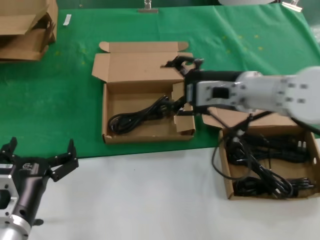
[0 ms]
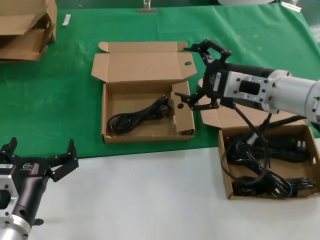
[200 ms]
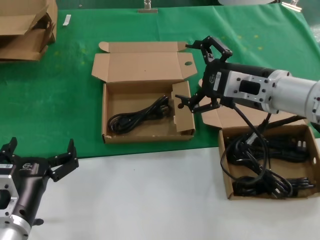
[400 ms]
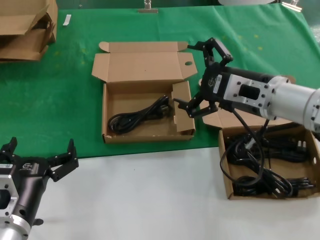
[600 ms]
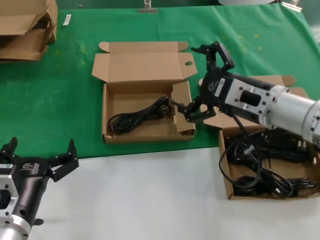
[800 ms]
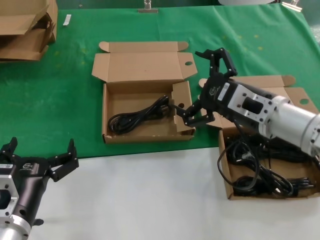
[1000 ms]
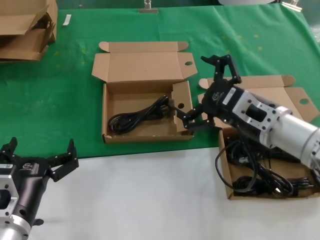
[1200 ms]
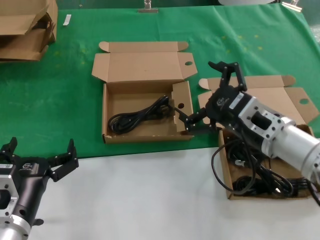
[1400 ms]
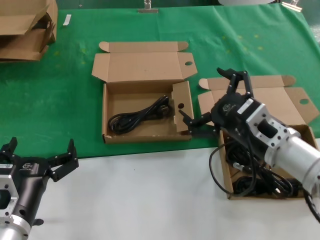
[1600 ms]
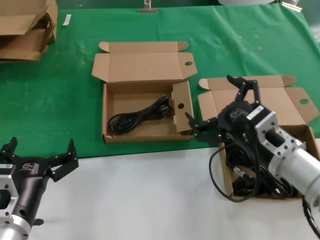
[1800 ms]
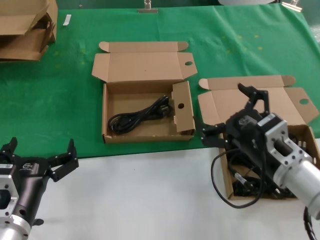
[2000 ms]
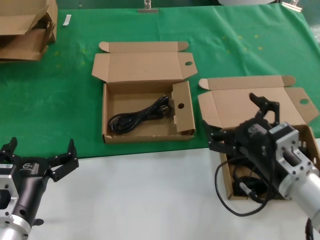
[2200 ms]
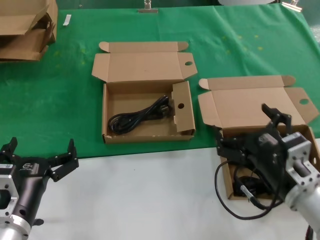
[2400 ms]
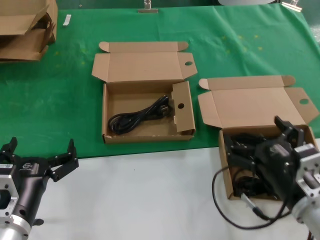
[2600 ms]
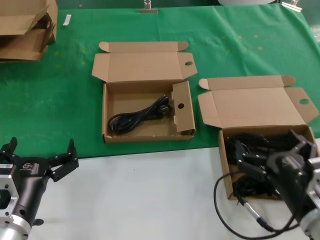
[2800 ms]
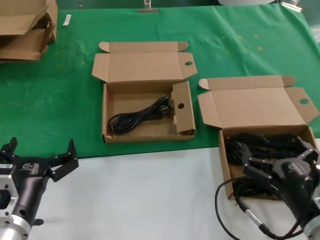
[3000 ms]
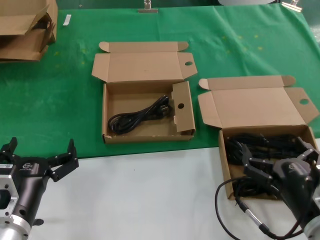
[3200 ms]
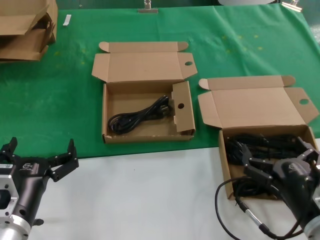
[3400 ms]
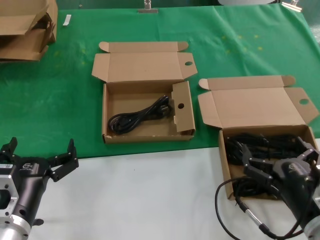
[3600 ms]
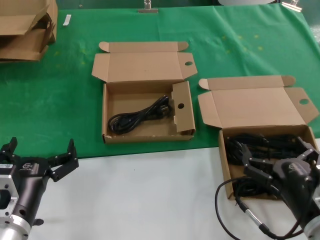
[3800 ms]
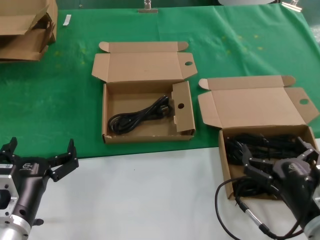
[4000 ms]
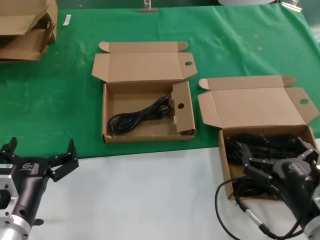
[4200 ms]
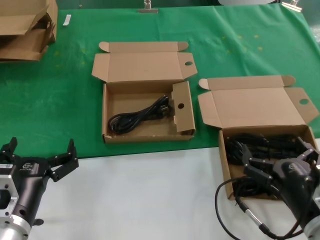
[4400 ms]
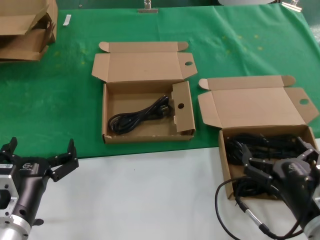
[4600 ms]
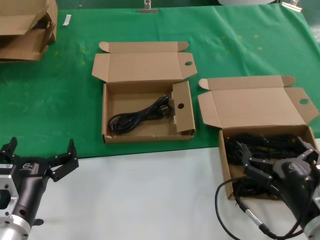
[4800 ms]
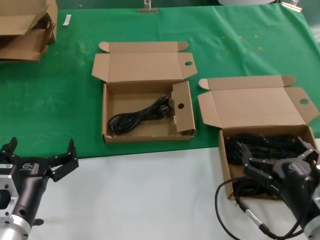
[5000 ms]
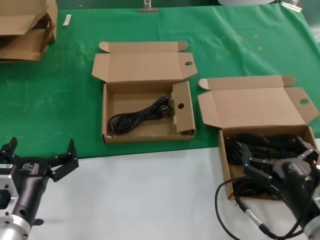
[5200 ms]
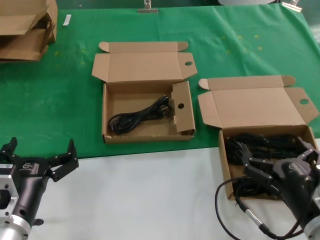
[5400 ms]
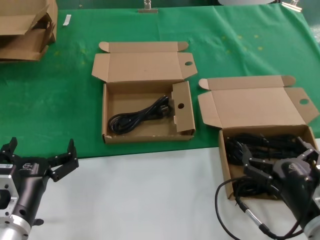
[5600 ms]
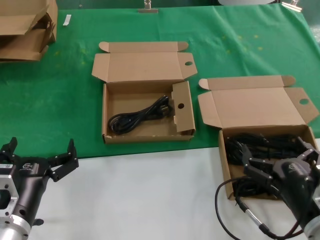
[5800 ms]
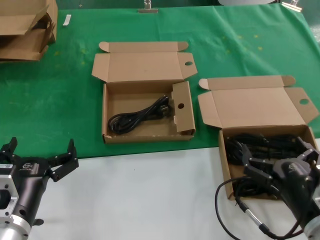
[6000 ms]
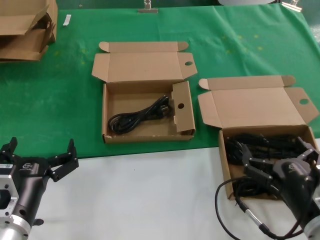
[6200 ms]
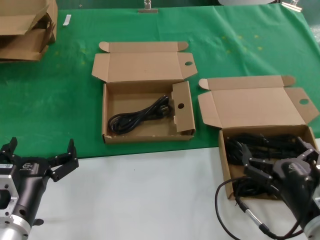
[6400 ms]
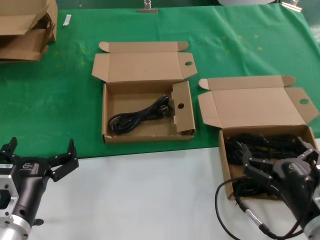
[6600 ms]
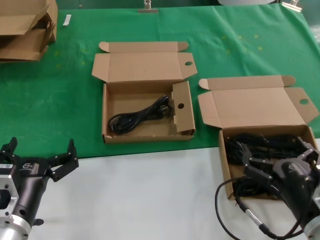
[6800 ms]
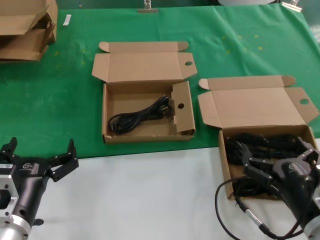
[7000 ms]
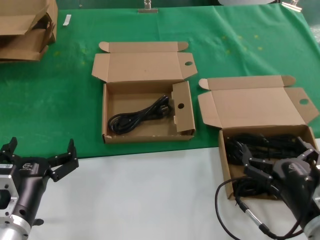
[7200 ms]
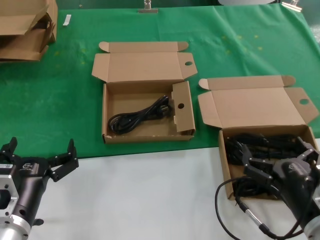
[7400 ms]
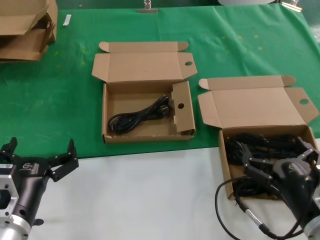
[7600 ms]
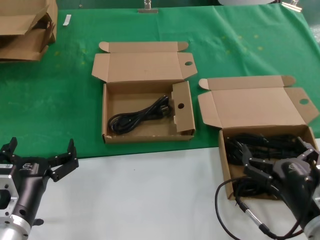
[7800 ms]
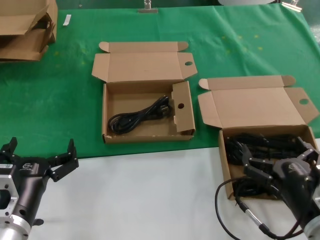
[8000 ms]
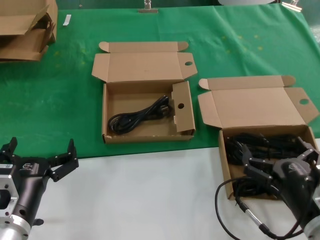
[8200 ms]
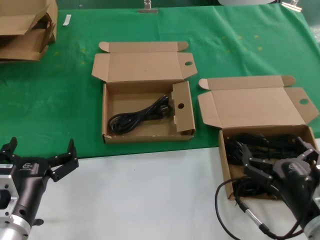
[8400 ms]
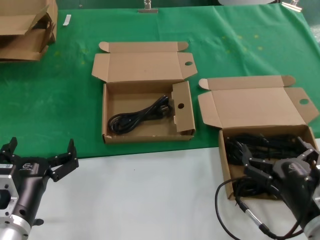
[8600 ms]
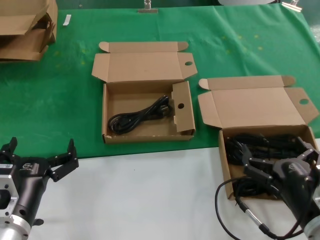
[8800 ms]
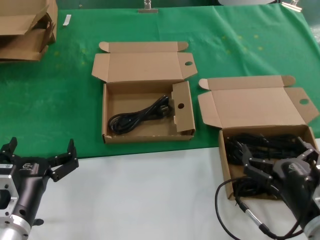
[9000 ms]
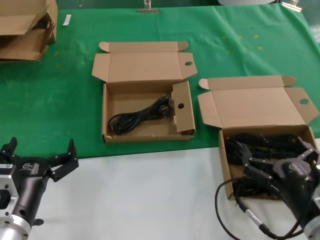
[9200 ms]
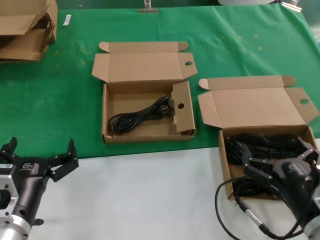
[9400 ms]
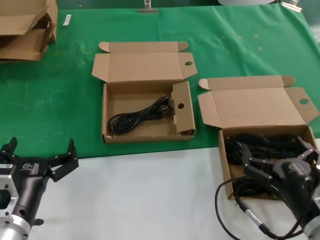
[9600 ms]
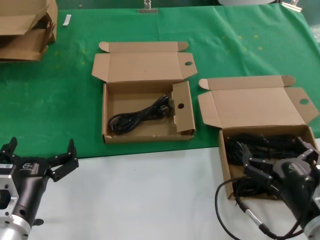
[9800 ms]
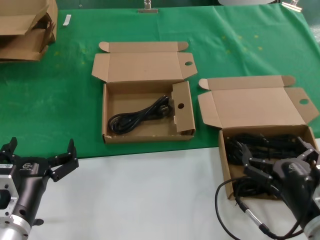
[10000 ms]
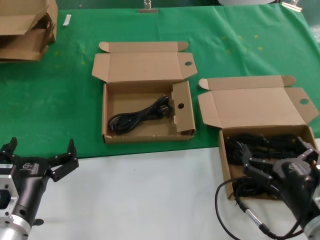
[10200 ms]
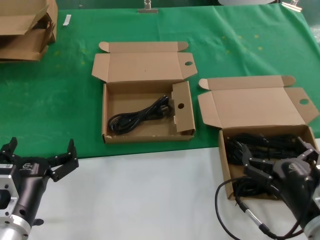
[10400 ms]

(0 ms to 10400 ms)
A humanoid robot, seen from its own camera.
Task of the whole recording: take the parts from the box containing them and put them into an empty box.
0 ms - 1400 ms: The right hand moves downward and backward, roughly 10 cm.
1400 ms - 3000 ms: The right hand goes approximately 15 cm downward and backward.
3000 ms - 10400 ms: Neither hand changes place.

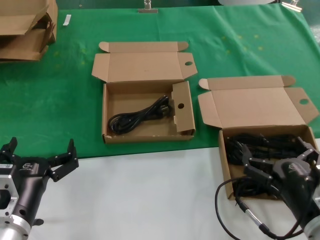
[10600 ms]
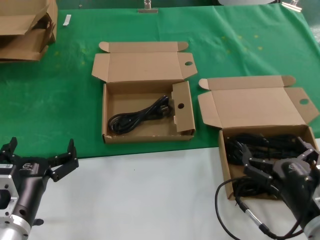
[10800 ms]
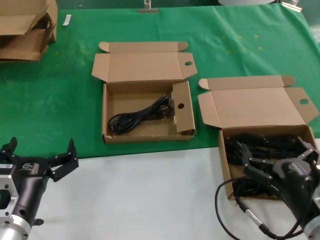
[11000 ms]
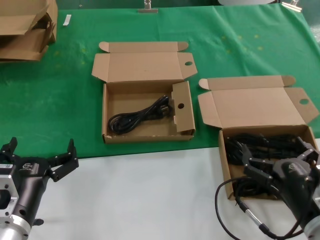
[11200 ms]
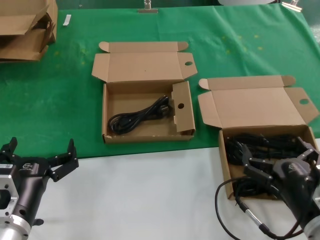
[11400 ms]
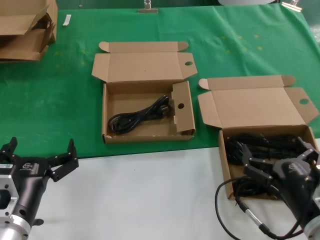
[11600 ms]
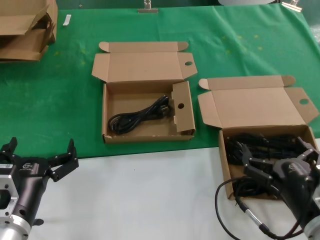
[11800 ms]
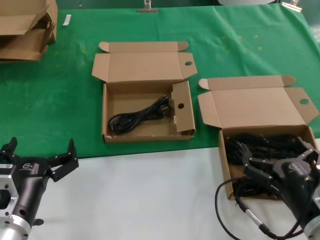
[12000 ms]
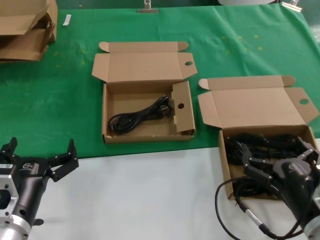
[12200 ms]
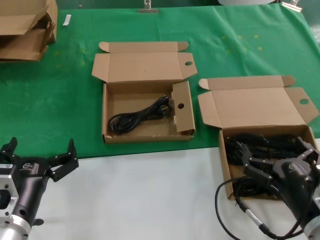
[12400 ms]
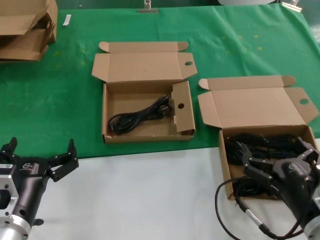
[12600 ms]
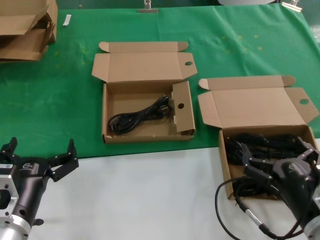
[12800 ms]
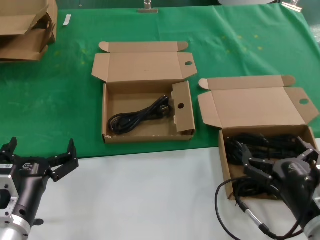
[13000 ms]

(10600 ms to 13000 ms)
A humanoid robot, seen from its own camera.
Task of the whole recording: take the parts from the box containing them and put them into an empty box.
10600 ms - 13000 ms: Neither hand changes place.

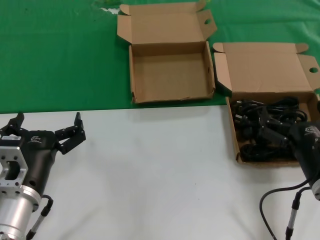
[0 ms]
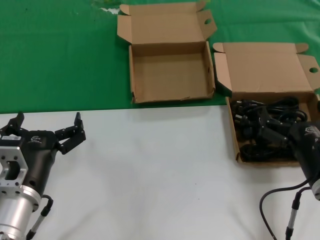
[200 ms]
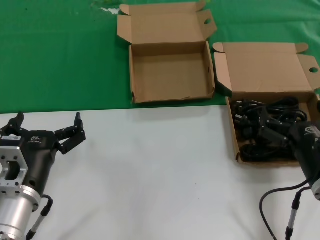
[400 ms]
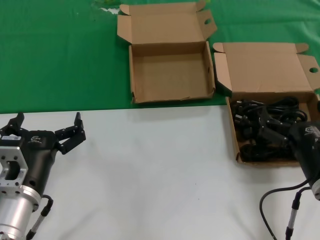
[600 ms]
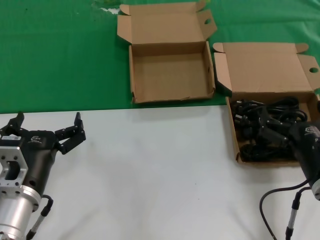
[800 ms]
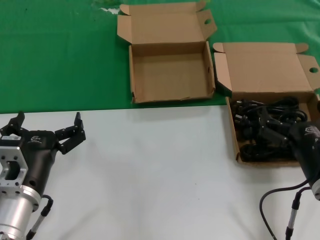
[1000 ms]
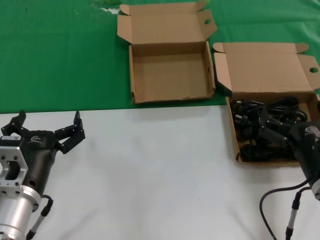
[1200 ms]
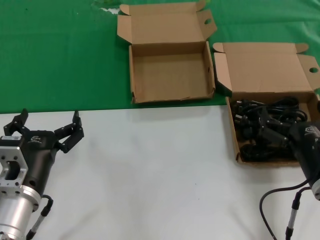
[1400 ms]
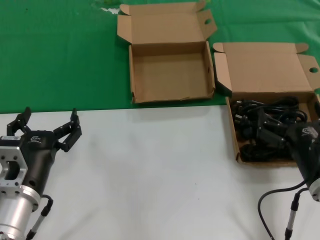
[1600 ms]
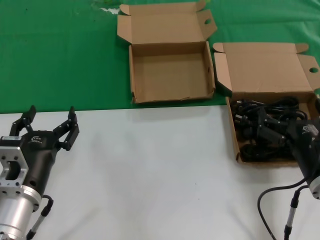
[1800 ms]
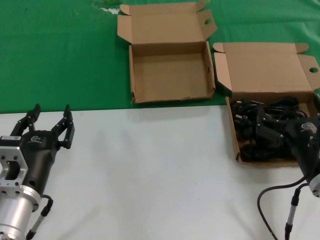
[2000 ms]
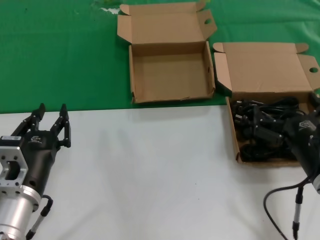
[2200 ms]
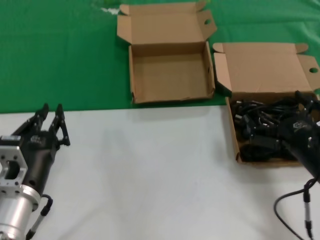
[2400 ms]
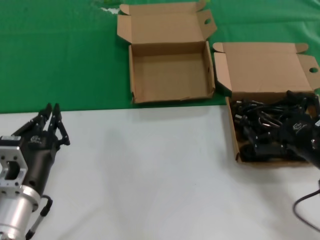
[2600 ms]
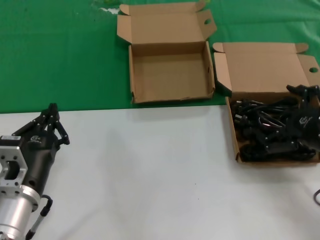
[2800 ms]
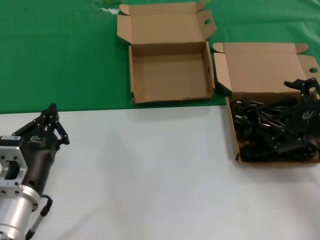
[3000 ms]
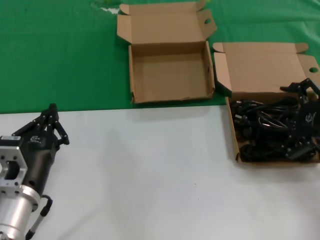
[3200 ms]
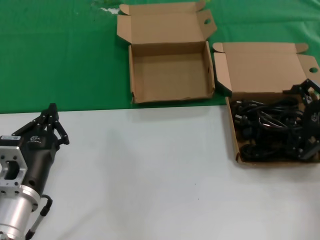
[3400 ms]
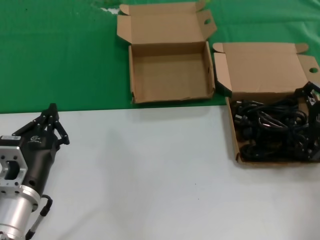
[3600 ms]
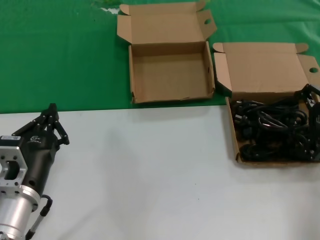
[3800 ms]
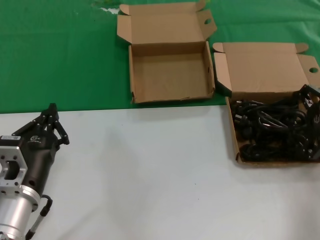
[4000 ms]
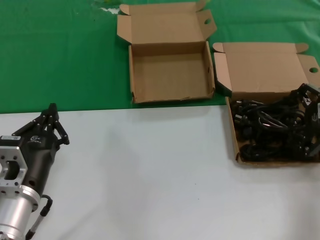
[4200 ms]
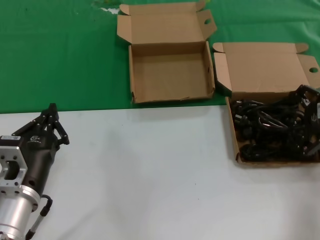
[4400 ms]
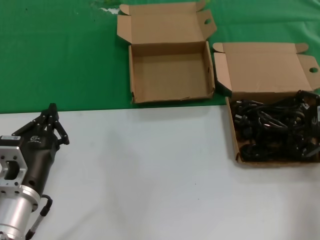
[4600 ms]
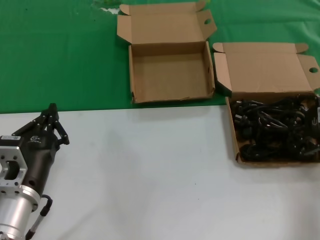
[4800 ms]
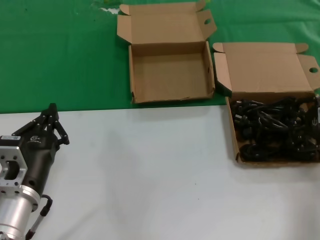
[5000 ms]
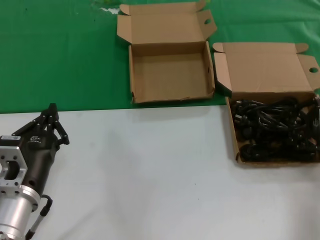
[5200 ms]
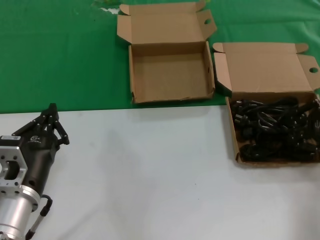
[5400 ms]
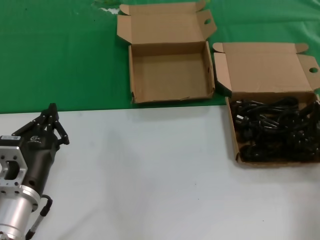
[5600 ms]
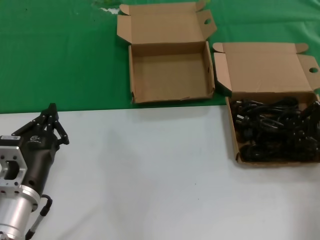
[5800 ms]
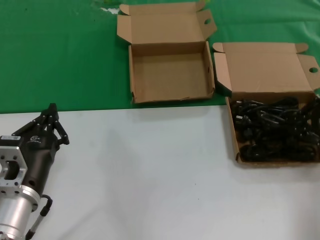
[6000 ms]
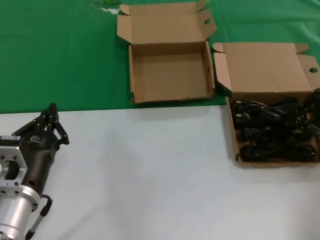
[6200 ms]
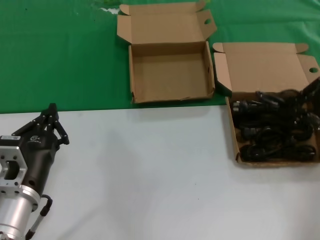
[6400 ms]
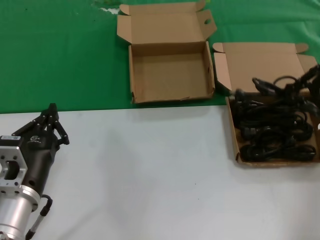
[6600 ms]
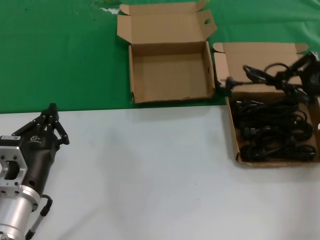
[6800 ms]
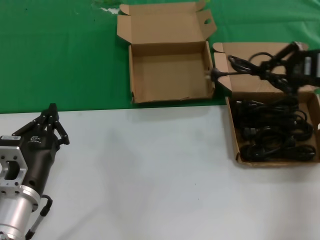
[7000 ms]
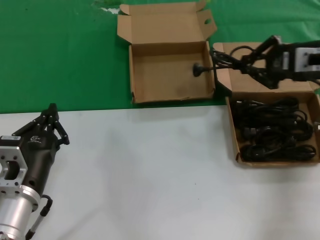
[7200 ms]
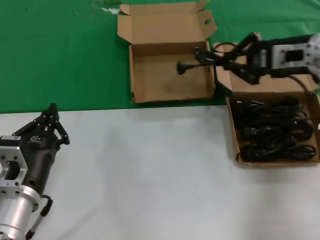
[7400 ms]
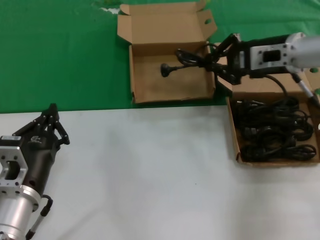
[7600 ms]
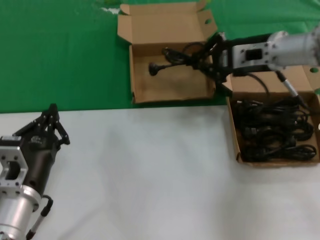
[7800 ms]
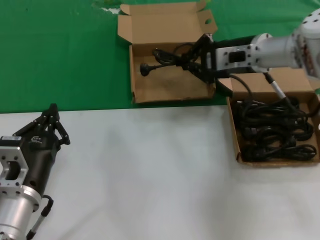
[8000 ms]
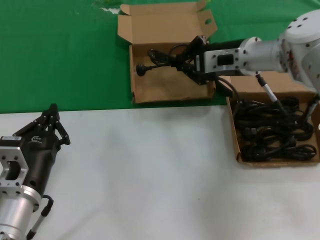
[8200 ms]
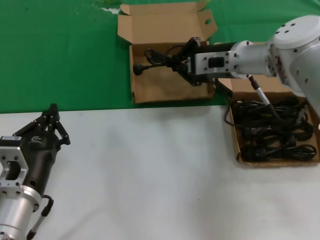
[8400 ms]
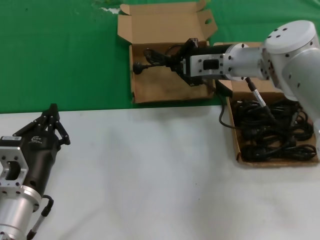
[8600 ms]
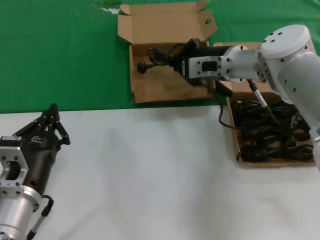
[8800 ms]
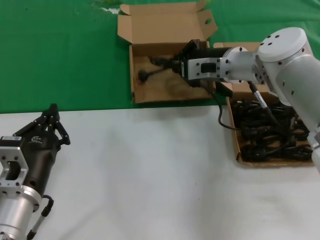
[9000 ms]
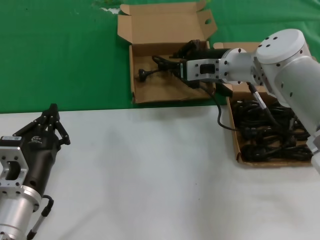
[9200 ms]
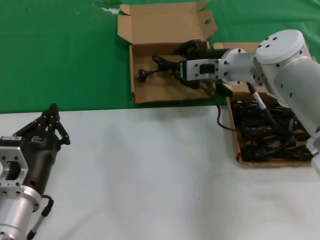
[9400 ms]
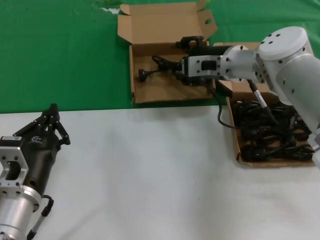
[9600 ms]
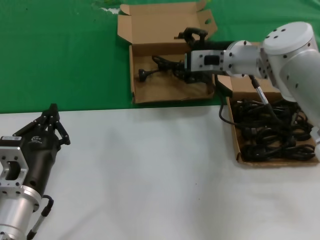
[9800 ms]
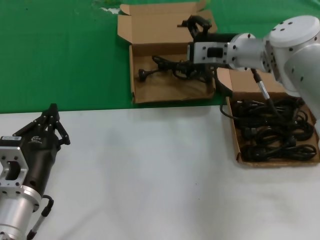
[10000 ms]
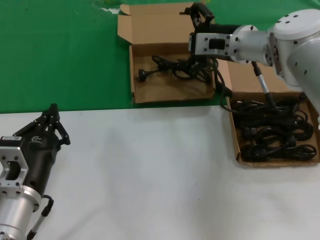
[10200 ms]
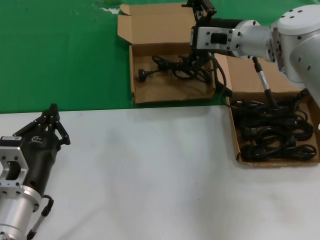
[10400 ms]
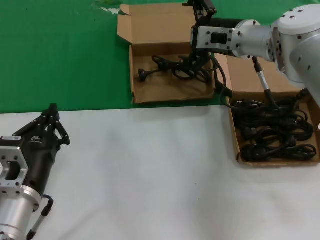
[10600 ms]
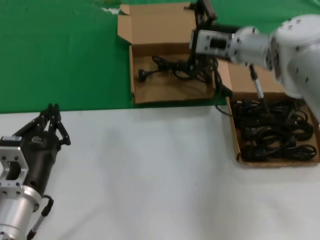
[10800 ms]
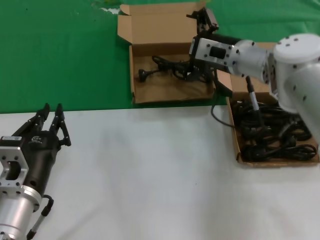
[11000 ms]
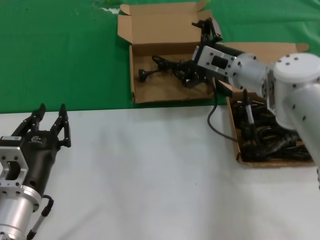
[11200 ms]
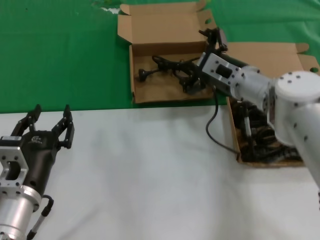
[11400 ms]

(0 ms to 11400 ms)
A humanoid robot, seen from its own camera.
Task of the whole recording: take the parts from the box containing them and put them into an empty box.
Step, 0 ms - 5800 ms: Grasp the data cable.
Step, 6000 ms - 9200 ms: Place the data cable in the another box.
0 ms - 1400 ms: The two hands keep their place.
1400 ms - 2800 ms: The right hand shifts about 10 cm to the right and upward.
2800 ms - 4200 ms: The right hand moves forward, upward and to the right, roughly 15 cm.
4200 ms - 5600 ms: Both hands stay about where they are.
5600 ms - 7200 ms: The right hand moves to the left and upward, some 10 cm.
7200 ms - 8600 ms: The right hand heads to the left and forward, covering about 20 cm.
8600 ms - 10000 ms: The hands make only small movements.
10000 ms - 11400 ms: The right hand goes about 5 cm downward.
